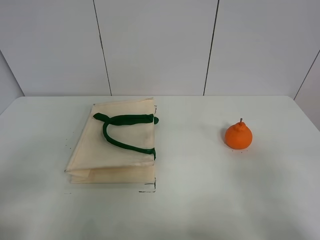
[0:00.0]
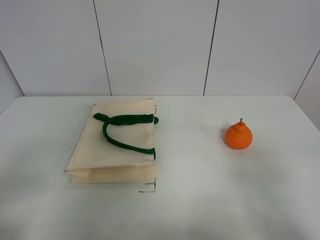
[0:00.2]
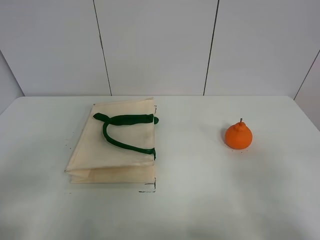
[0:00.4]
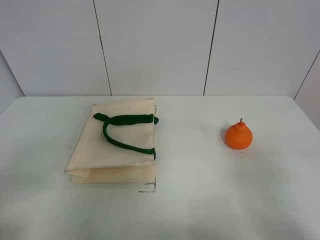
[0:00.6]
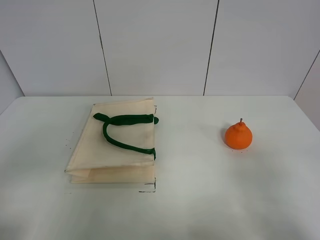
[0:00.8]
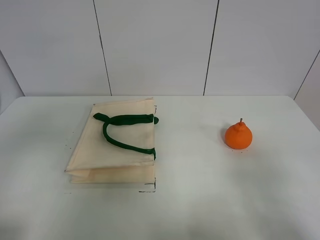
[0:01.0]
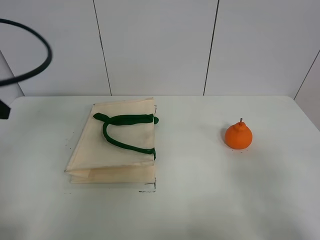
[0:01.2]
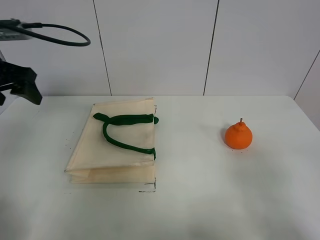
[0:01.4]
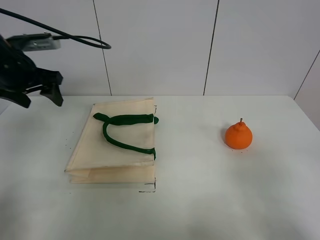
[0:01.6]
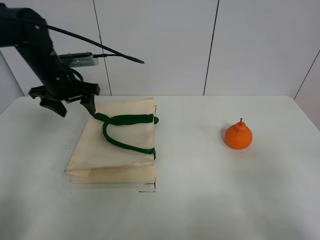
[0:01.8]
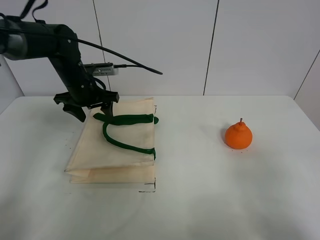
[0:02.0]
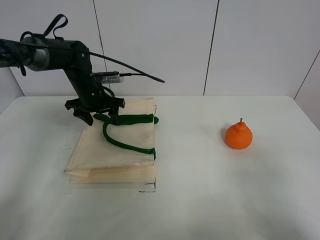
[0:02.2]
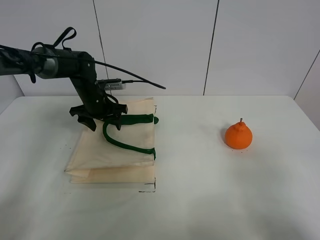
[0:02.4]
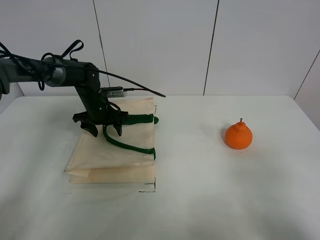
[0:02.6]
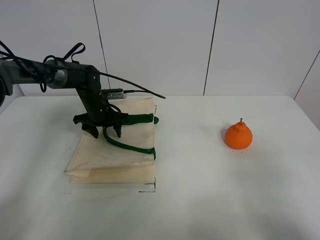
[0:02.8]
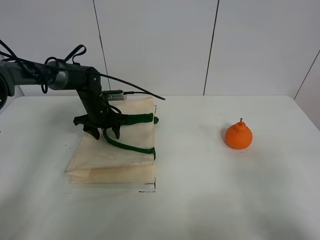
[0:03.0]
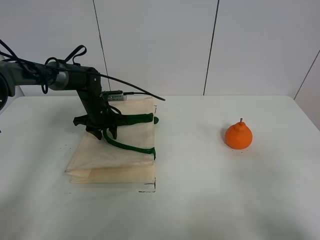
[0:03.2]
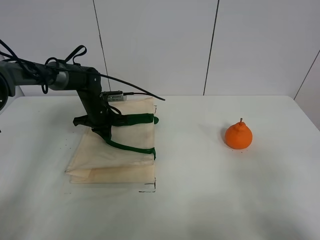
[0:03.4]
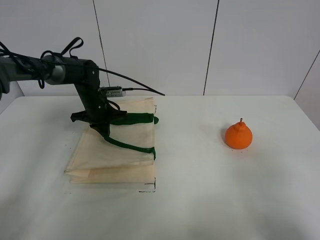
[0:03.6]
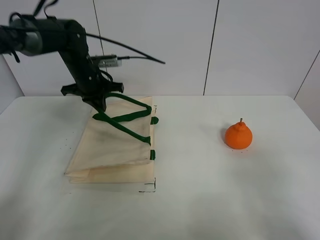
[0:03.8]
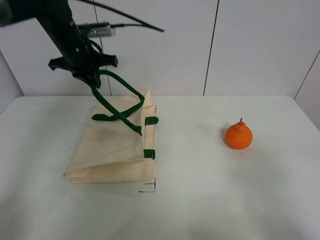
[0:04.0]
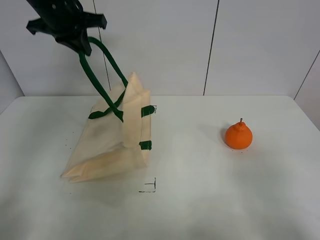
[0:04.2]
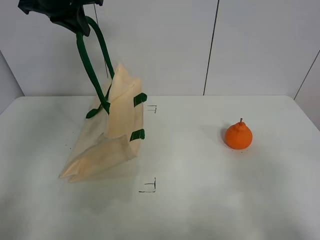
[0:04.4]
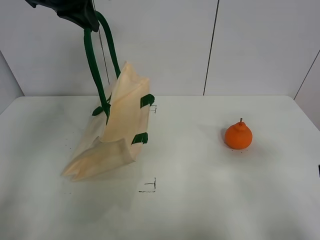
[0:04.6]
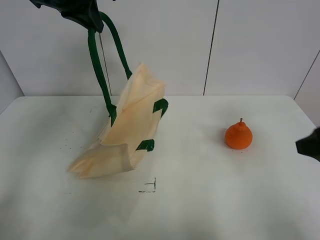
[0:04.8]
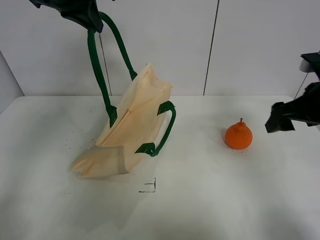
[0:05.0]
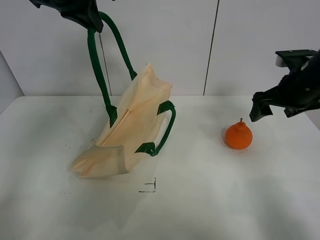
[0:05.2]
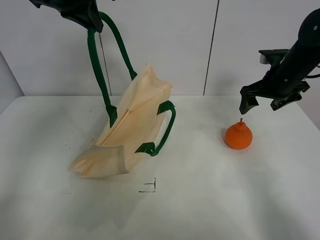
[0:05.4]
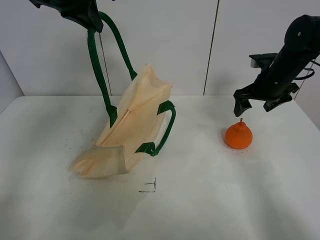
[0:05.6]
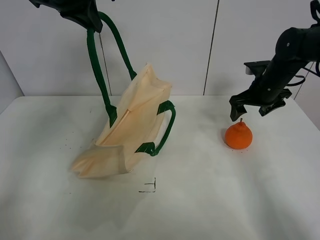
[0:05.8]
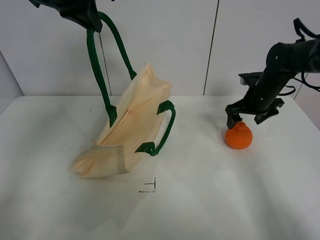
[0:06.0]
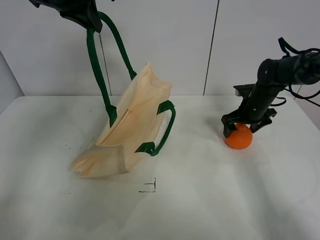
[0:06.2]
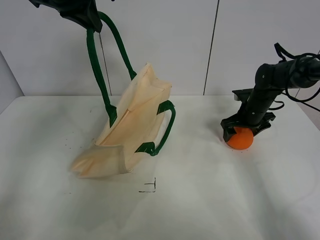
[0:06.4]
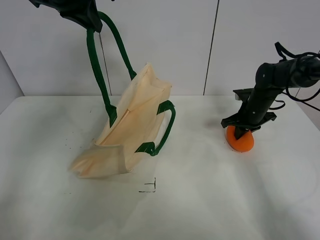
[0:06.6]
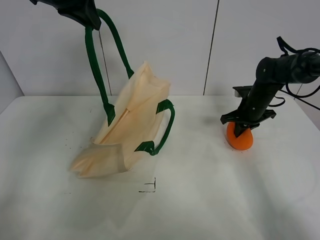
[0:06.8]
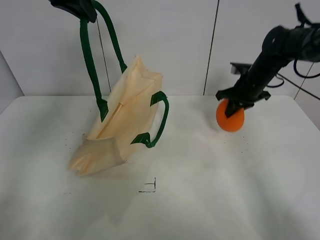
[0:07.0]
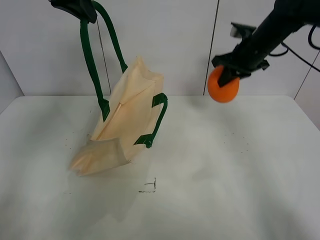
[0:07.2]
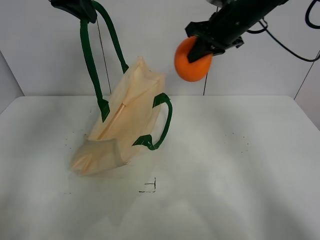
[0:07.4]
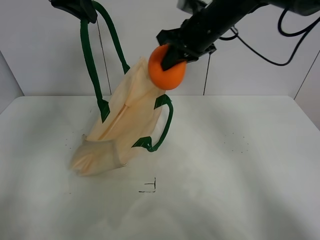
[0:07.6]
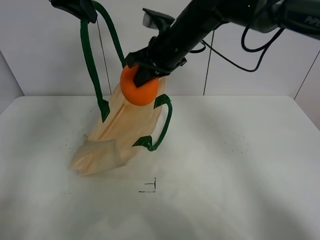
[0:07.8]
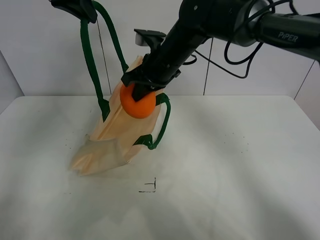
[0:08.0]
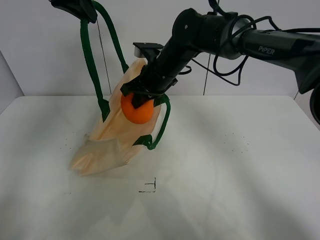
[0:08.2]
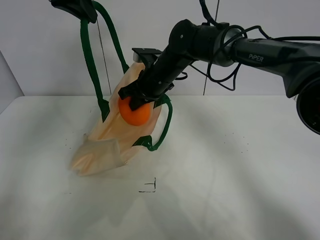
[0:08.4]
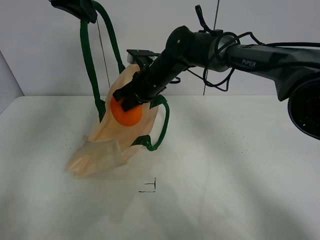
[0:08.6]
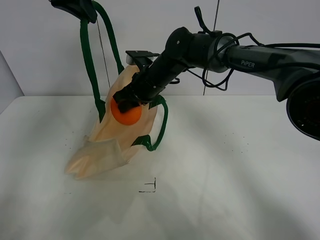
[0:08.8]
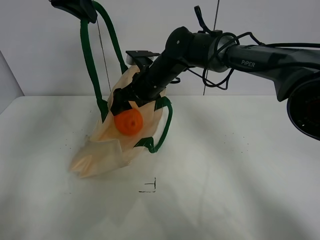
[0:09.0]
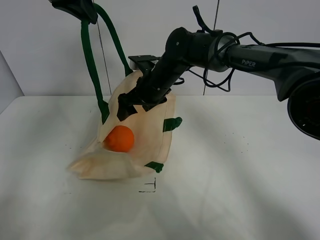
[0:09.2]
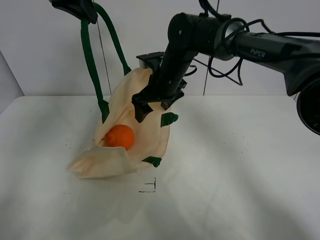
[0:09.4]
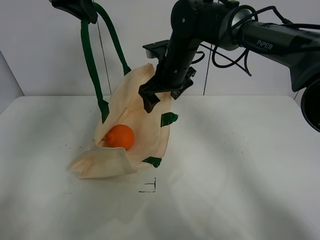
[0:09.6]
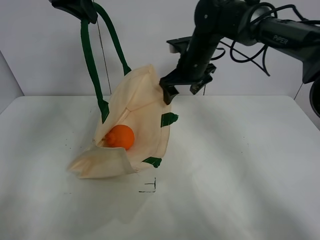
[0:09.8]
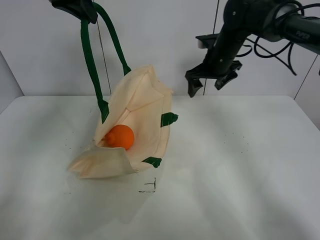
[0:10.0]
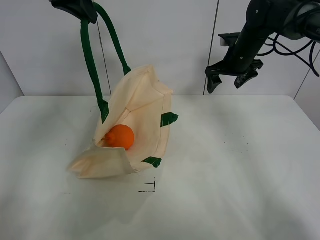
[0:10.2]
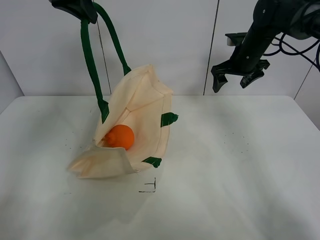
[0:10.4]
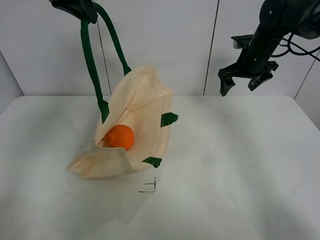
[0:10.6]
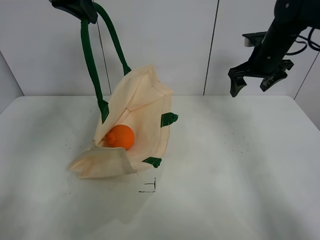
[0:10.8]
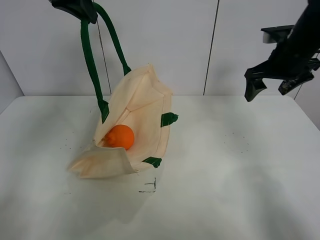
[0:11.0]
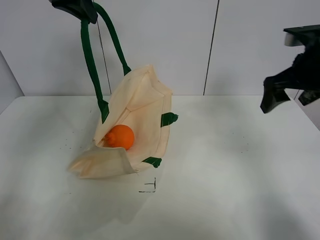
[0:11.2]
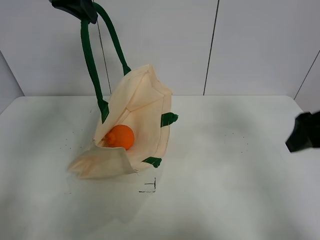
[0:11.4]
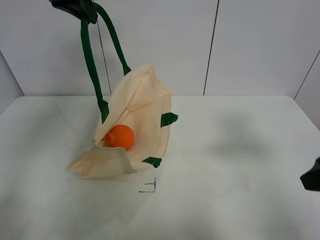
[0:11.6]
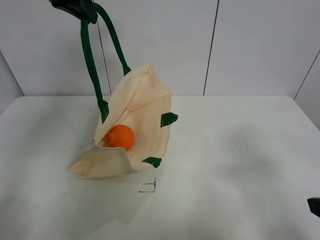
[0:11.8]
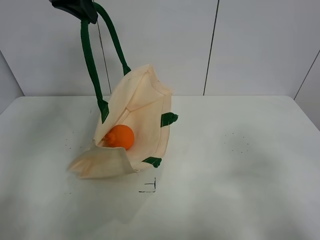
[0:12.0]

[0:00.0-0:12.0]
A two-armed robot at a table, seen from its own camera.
Task of the whole recording: open the white linen bag and put the orange in the bag.
Step, 0:00.0 to 0:04.2: Lift the handbag with left gripper.
Step, 0:04.4 to 0:06.8: Grasp the orange with right gripper.
Step, 0:07.0 to 0:09.8: Place the orange in the handbag with right gripper.
0:00.0 to 0:01.6: The left gripper heads forward, covering some 35 cm.
0:01.6 to 0:03.0: The left gripper shifts some 20 cm downward, to the right and forward.
0:03.0 to 0:04.4: The left gripper shifts some 30 cm upward, and closes its fingers.
0:04.4 to 0:06.0: The right gripper heads forward, covering roughly 40 cm.
0:06.0 to 0:07.6: The right gripper is displaced to the left and upward by some 25 cm, and closes.
0:07.6 to 0:09.0: The right gripper is displaced downward and to the left by roughly 15 cm, and opens its fingers.
0:09.0 to 0:10.4: The right gripper travels to the right by roughly 25 cm.
0:10.4 to 0:12.0: The right gripper is displaced backward by roughly 40 cm.

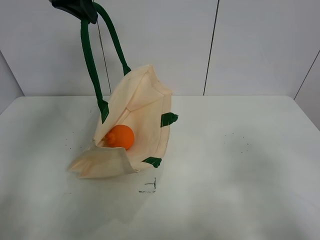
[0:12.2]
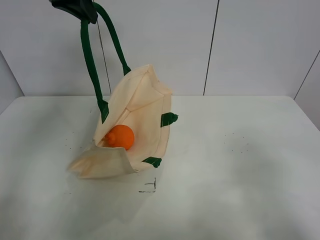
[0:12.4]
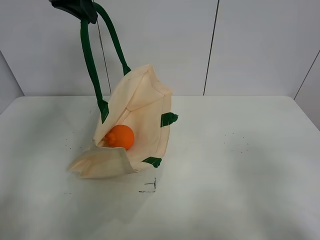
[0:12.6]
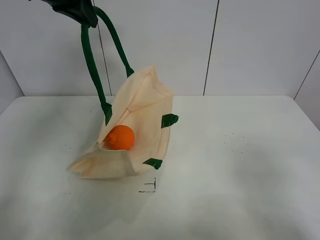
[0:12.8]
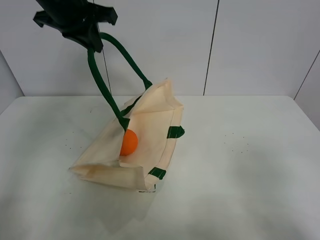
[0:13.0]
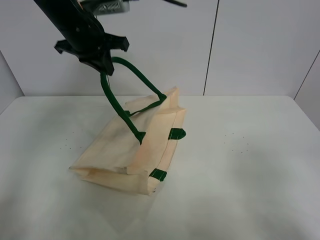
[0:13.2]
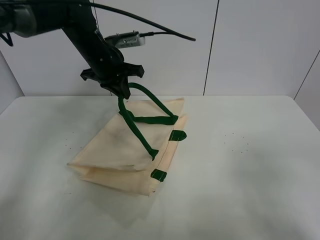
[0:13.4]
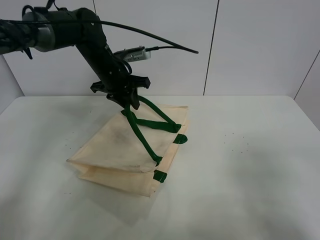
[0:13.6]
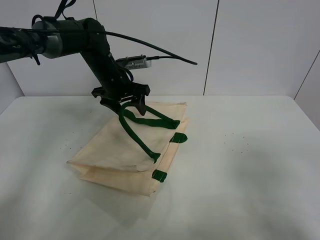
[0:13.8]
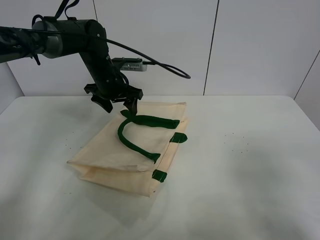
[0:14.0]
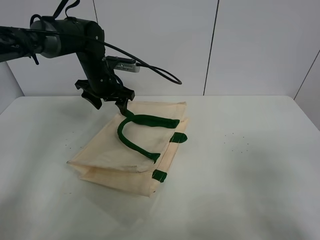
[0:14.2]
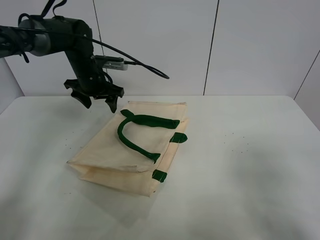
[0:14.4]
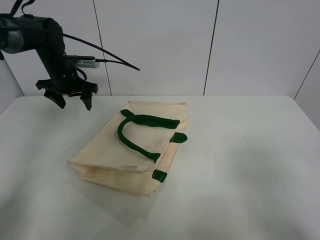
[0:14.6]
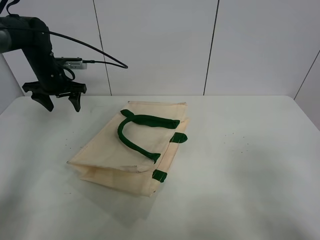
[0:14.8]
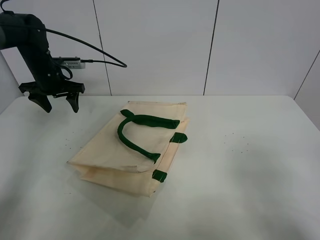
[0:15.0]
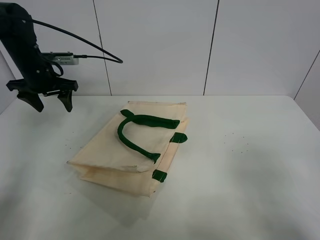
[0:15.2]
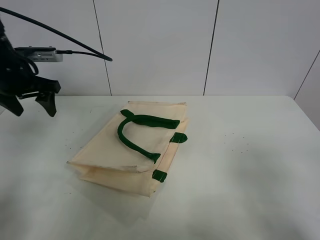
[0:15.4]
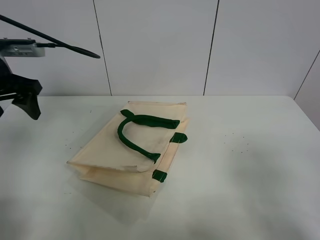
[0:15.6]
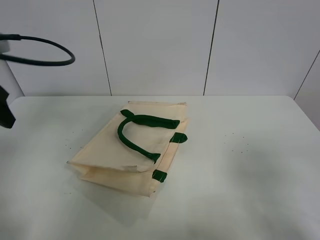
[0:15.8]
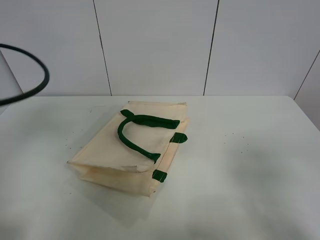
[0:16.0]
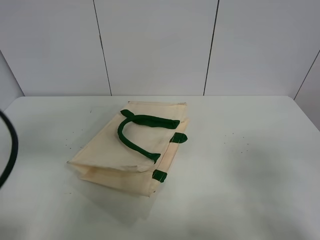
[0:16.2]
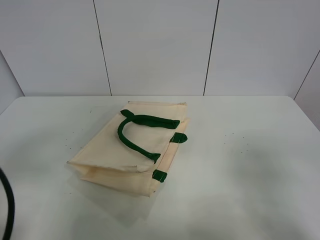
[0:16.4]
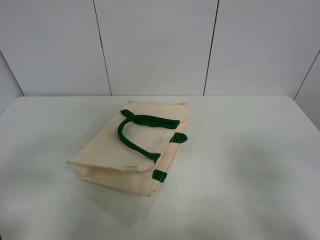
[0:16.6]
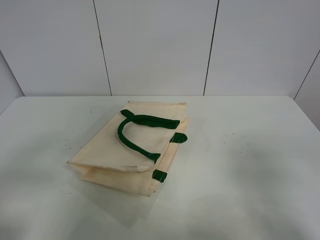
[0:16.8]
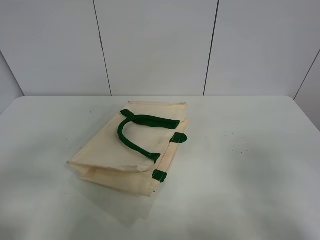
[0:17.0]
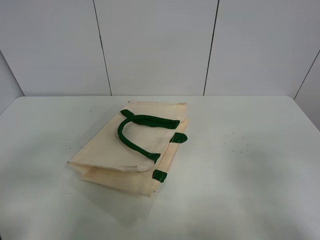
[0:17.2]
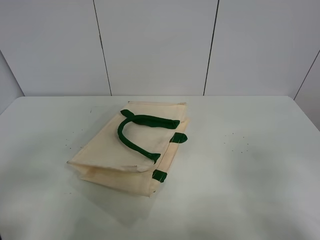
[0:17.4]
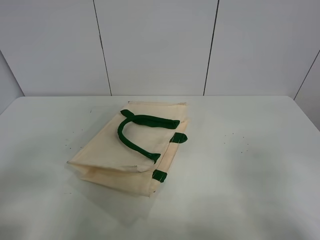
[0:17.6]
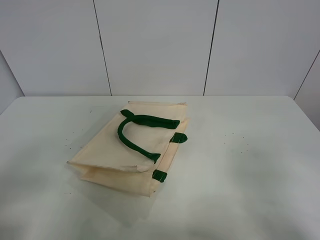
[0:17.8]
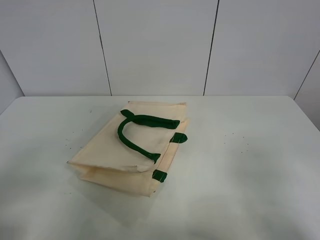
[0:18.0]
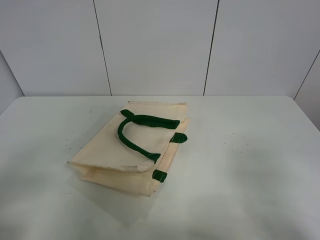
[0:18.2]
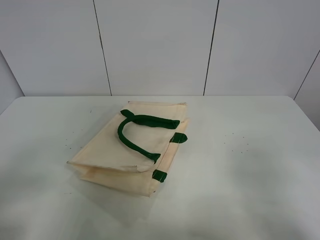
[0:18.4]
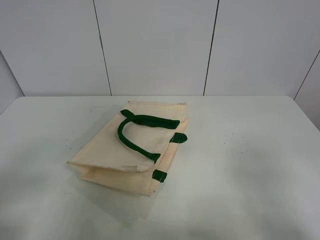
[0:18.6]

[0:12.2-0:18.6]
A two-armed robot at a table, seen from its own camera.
Task of the whole recording: open the white linen bag and put the orange in the bag.
0:12.2 to 0:13.8: The left gripper travels downward by roughly 25 cm, and opens.
0:13.8 to 0:15.4: The left gripper heads to the left, backward and upward, covering some 20 cm.
0:15.4 to 0:17.0: The left gripper is displaced backward by some 30 cm.

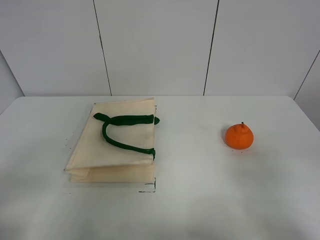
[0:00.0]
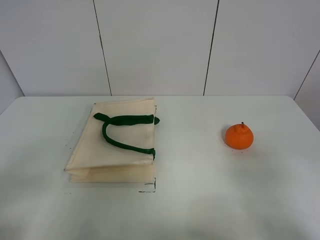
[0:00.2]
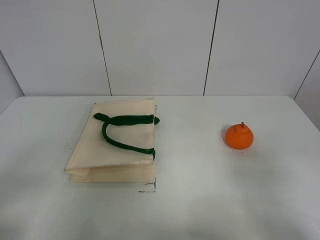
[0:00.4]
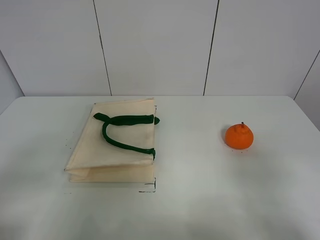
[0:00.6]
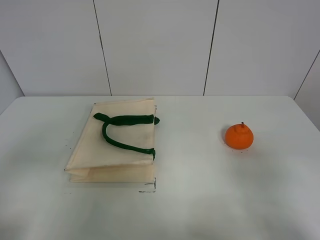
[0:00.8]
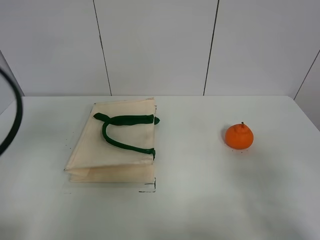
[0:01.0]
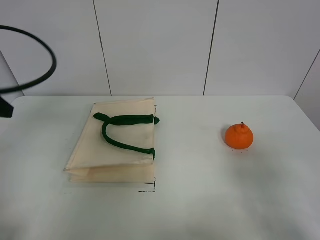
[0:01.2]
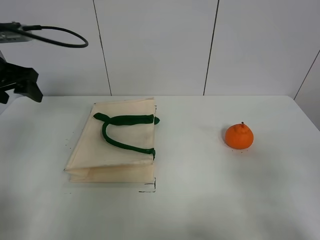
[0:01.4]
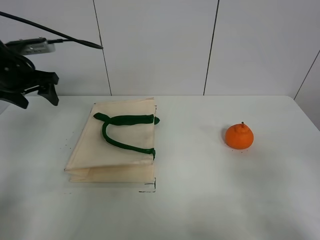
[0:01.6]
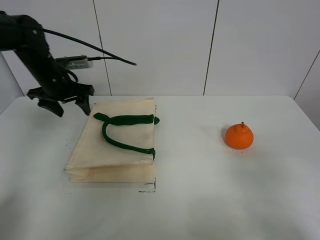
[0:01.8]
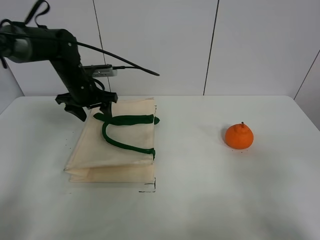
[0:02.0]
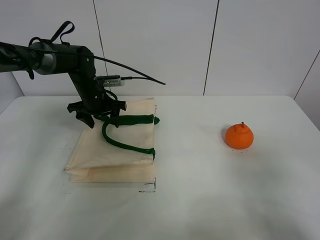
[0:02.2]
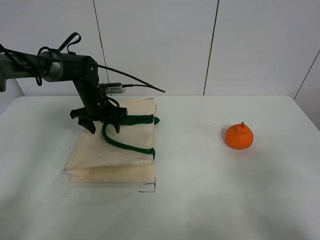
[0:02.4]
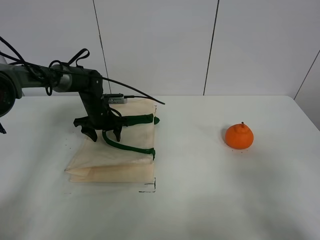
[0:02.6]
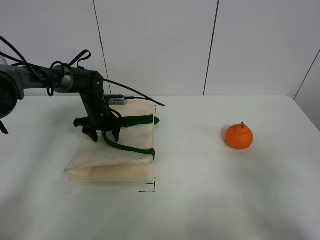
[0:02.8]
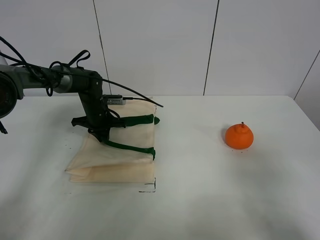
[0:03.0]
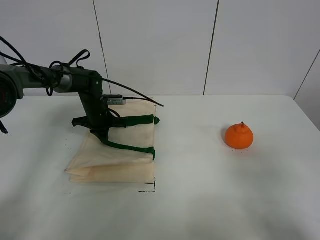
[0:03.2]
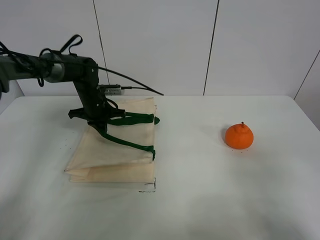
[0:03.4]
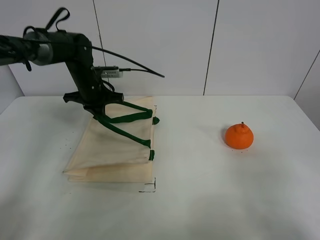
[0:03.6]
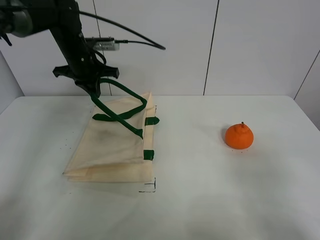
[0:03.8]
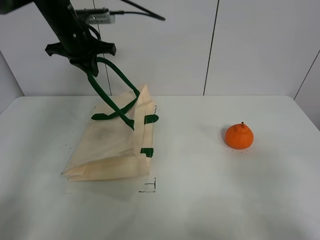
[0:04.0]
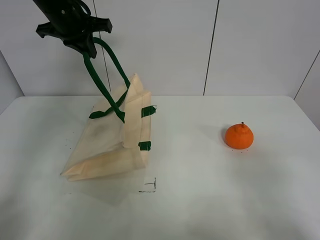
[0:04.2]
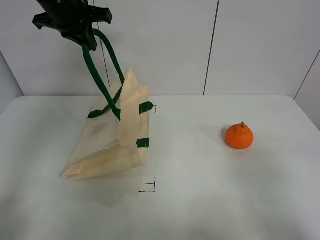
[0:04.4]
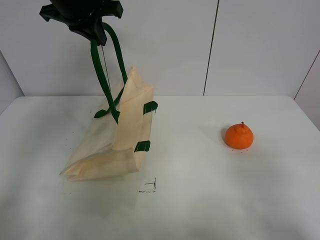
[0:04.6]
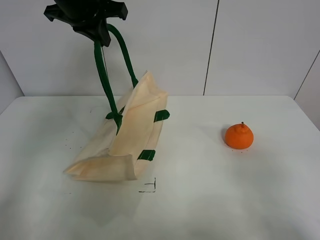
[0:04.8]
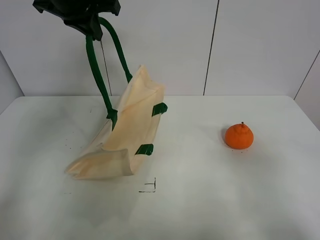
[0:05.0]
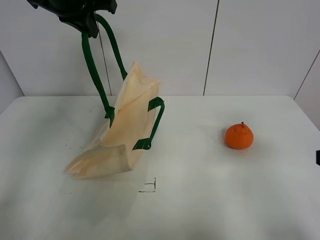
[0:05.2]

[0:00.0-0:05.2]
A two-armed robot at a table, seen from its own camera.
Task of the whole recording: open the white linen bag and put the orange in the bag.
Step, 0:00.0 to 0:04.8: Lift the handbag with left gripper.
0:00.0 to 0:01.8: The left gripper goes approximately 40 cm forward.
0:01.8 to 0:03.4: The left gripper goes roughly 10 cm downward and to the right, and closes its fingers.
0:03.4 to 0:05.2: The right gripper heads forward, covering roughly 10 cm; the left gripper shifts approximately 25 cm upward.
